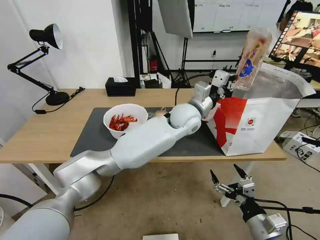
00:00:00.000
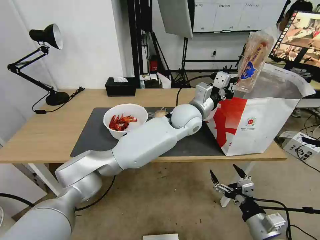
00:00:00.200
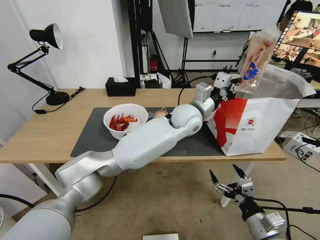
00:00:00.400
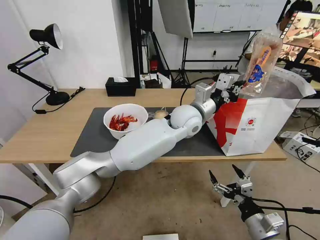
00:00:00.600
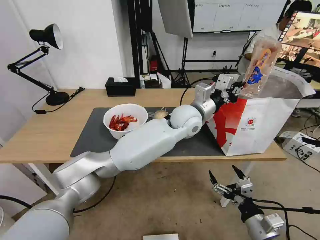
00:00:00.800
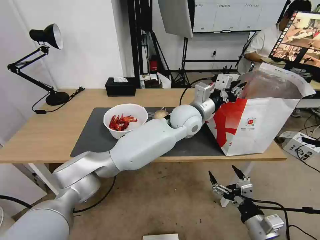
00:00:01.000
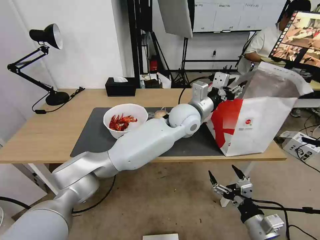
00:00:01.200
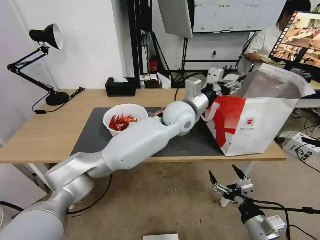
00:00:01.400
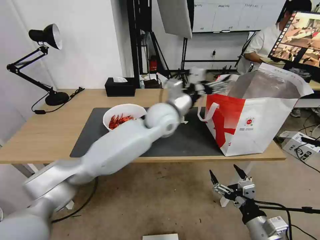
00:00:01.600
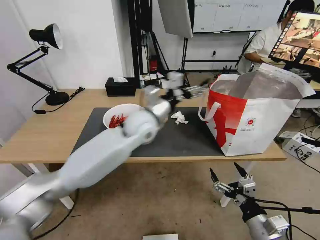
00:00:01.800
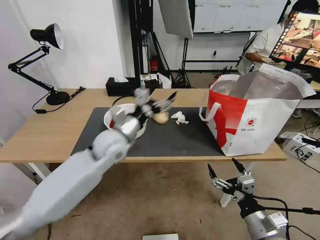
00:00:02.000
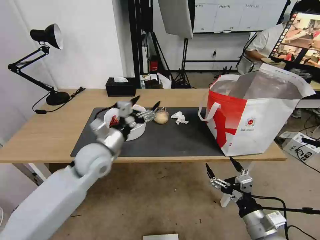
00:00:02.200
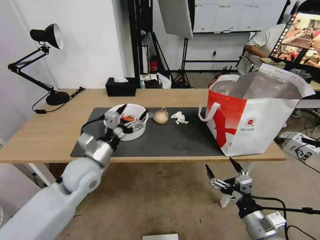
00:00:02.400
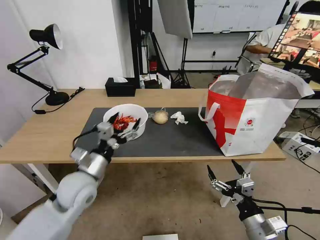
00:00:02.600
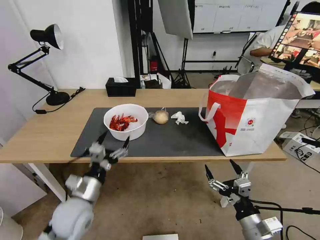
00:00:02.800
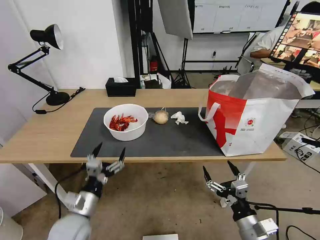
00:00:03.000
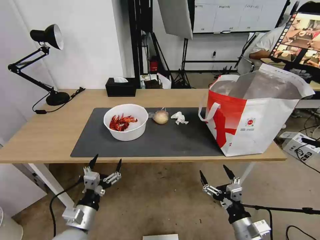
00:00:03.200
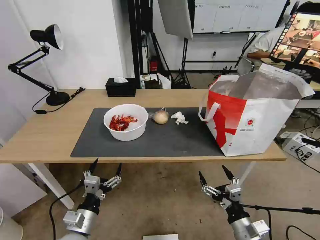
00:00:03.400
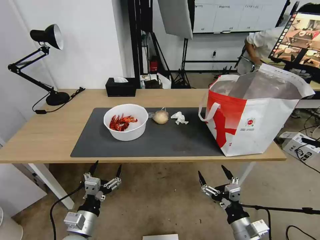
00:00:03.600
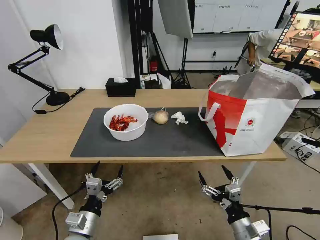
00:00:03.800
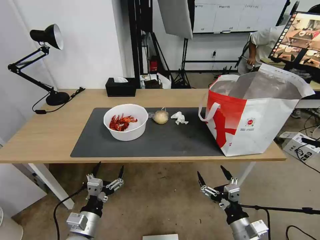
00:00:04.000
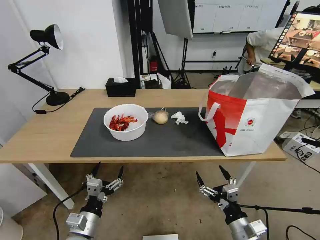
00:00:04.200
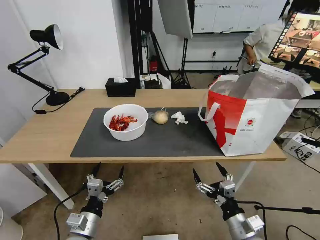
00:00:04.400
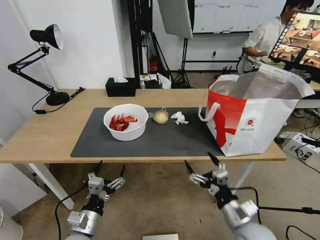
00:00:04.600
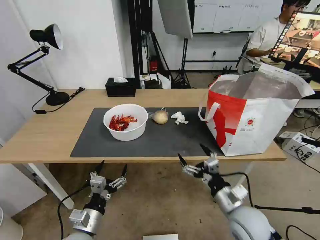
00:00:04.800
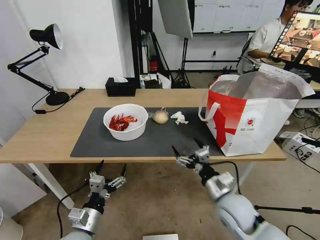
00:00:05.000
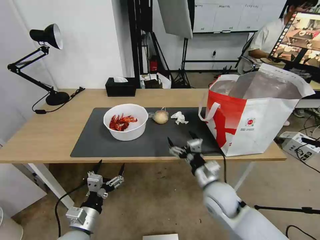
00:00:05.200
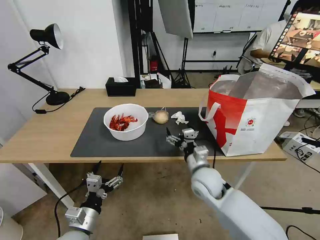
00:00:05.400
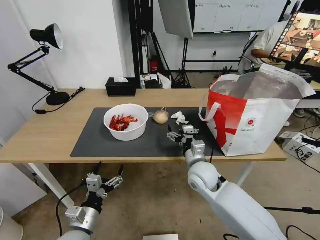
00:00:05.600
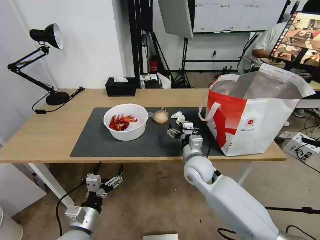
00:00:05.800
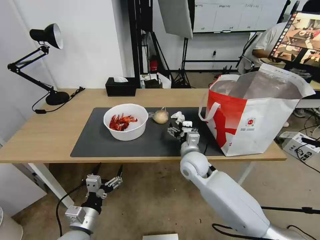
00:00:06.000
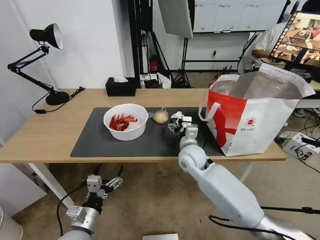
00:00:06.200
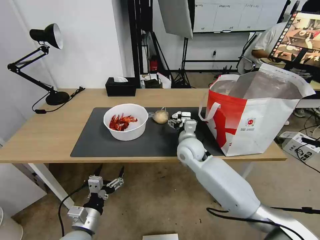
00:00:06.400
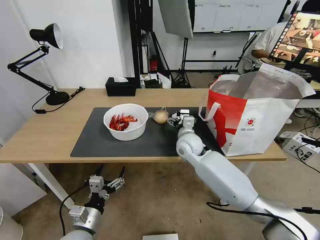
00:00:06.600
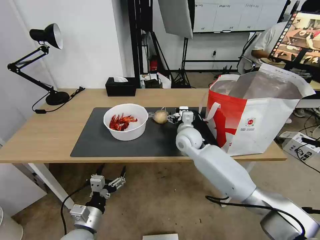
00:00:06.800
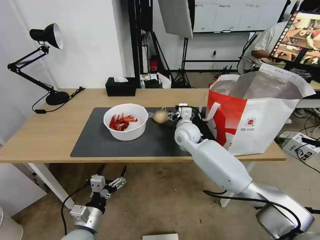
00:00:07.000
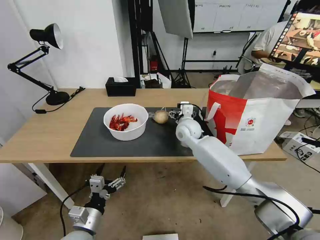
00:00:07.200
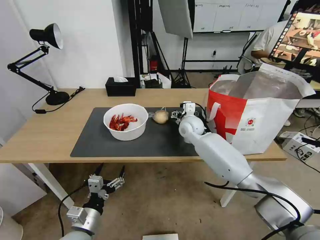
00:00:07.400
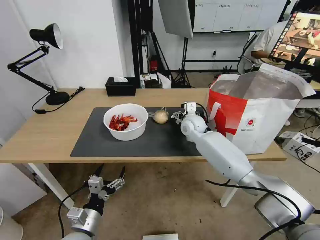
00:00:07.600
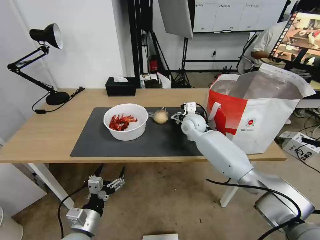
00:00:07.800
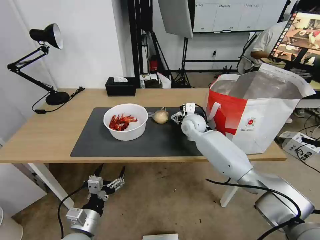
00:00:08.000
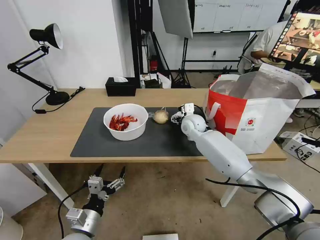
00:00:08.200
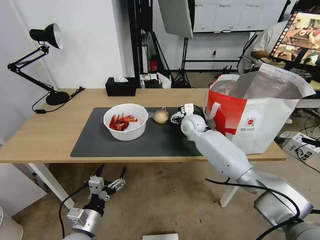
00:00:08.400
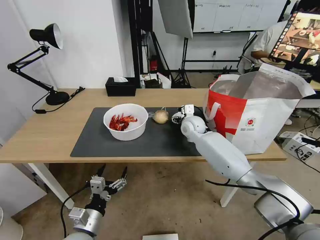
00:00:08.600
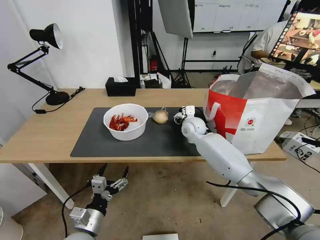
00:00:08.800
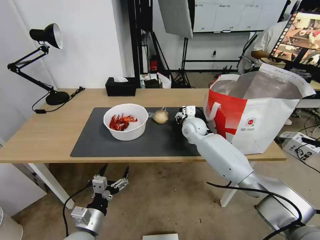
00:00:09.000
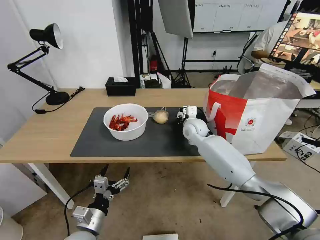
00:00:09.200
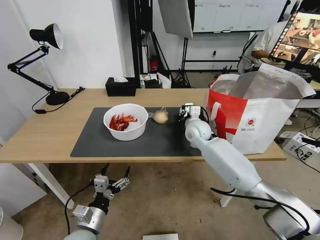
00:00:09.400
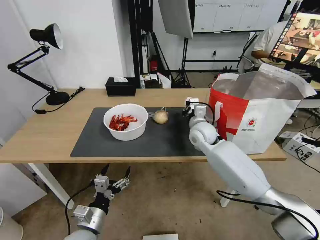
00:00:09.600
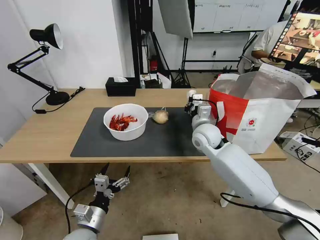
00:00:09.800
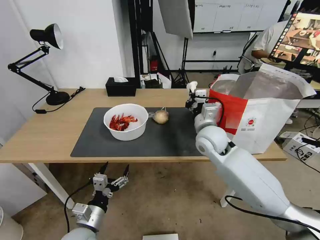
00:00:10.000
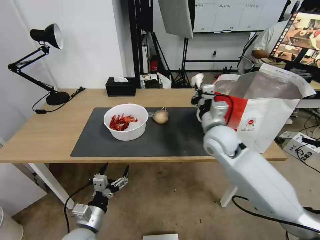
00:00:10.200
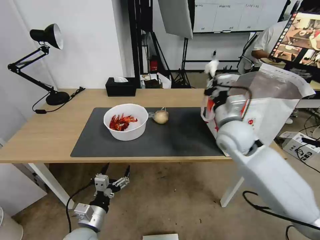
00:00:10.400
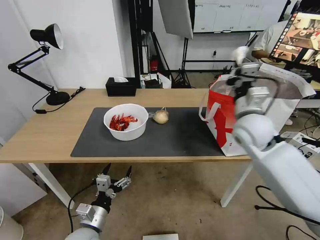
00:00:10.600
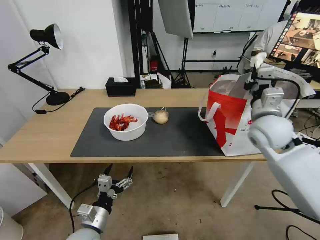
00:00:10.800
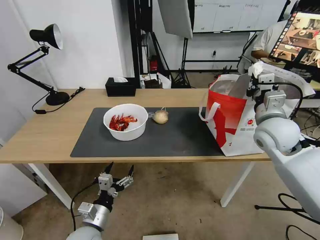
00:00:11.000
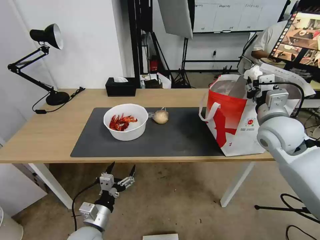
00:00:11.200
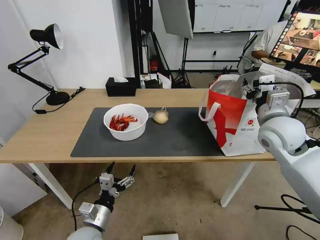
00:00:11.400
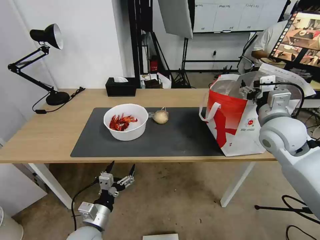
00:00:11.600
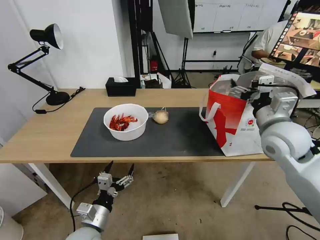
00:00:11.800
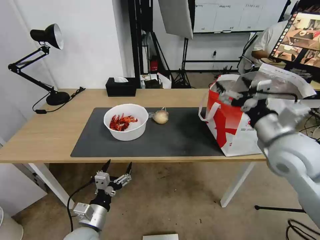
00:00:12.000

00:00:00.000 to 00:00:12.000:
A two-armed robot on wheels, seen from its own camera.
Task of the whole recording: Pick up the trash from the table and place it into the takeout bag.
00:00:00.000 to 00:00:01.600: The left gripper is displaced to the left by some 10 cm, and opens up.
00:00:01.600 to 00:00:03.000: The left gripper travels backward, to the left and downward by approximately 40 cm.
00:00:03.000 to 00:00:04.400: The left gripper ends up some 5 cm from where it was.
00:00:04.400 to 00:00:06.000: The right gripper moves forward and to the left, roughly 30 cm.
00:00:06.000 to 00:00:07.600: The right gripper goes some 15 cm forward.
00:00:07.600 to 00:00:09.000: The right gripper closes its fingers.
00:00:09.000 to 00:00:10.400: The right gripper travels backward, upward and to the right by roughly 20 cm, and closes.
00:00:10.400 to 00:00:12.000: The right gripper is displaced backward and to the right by some 10 cm, and opens its fingers.

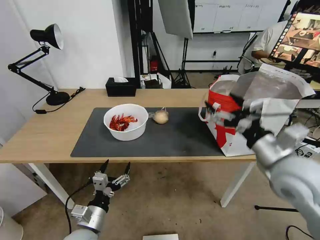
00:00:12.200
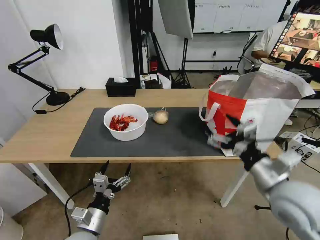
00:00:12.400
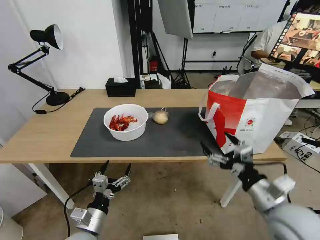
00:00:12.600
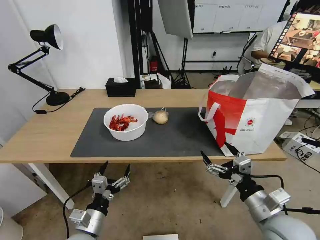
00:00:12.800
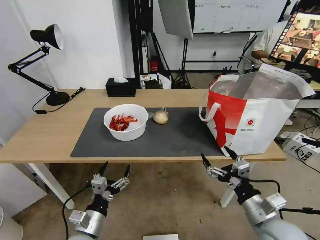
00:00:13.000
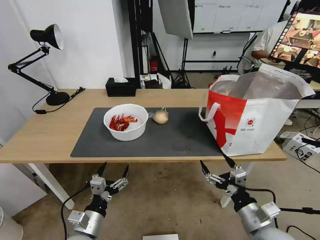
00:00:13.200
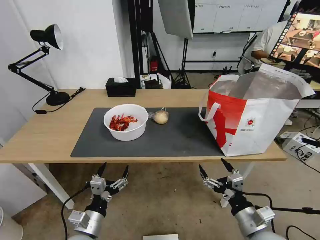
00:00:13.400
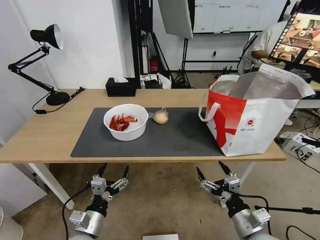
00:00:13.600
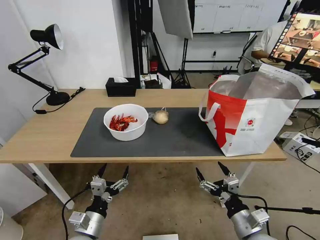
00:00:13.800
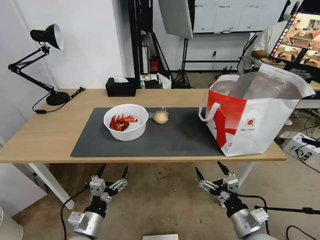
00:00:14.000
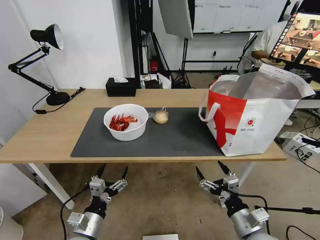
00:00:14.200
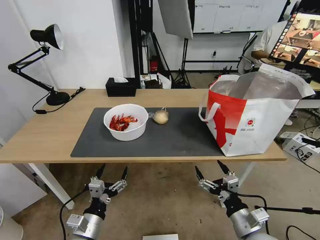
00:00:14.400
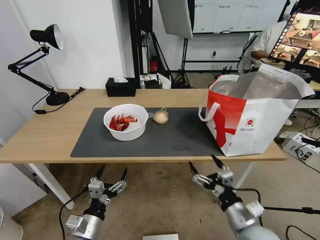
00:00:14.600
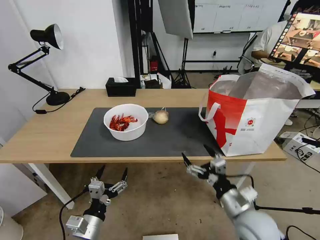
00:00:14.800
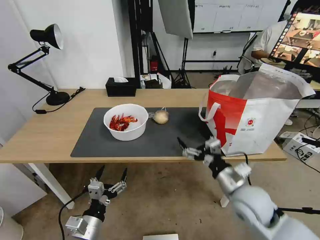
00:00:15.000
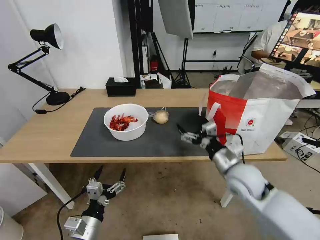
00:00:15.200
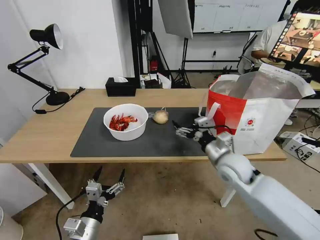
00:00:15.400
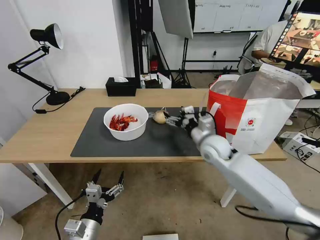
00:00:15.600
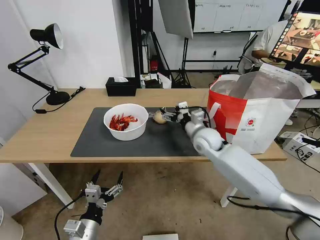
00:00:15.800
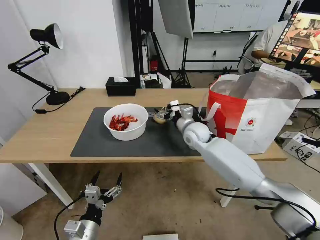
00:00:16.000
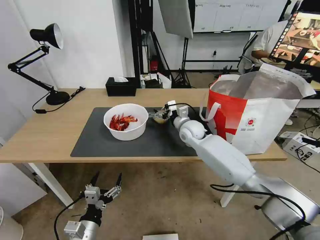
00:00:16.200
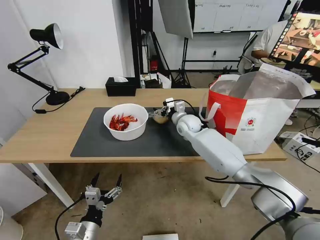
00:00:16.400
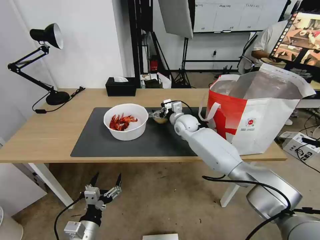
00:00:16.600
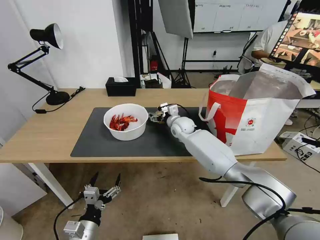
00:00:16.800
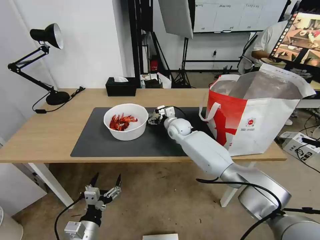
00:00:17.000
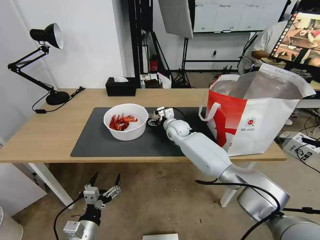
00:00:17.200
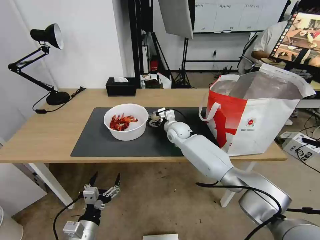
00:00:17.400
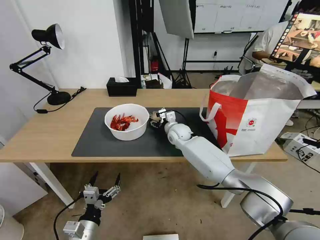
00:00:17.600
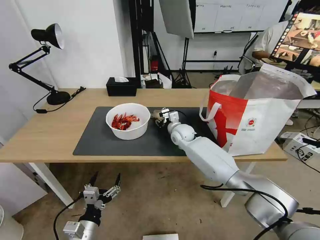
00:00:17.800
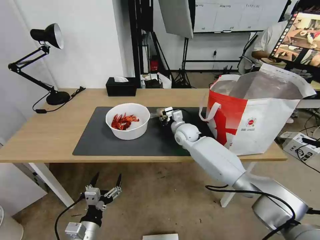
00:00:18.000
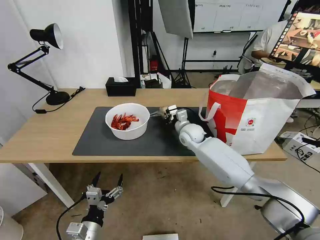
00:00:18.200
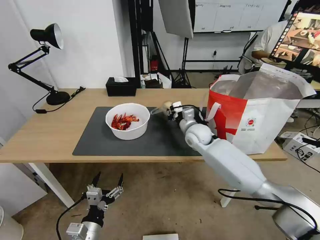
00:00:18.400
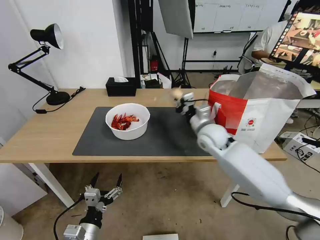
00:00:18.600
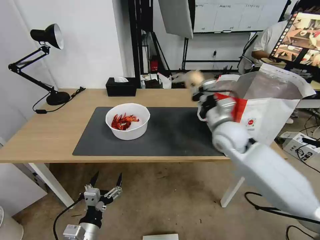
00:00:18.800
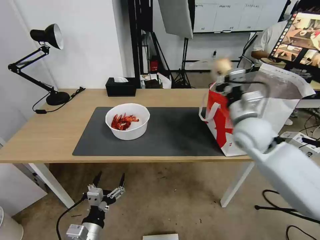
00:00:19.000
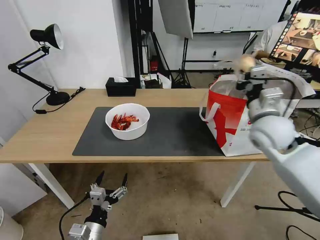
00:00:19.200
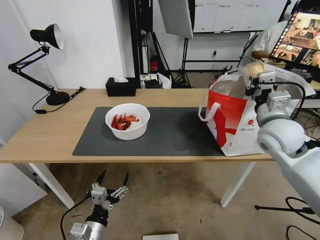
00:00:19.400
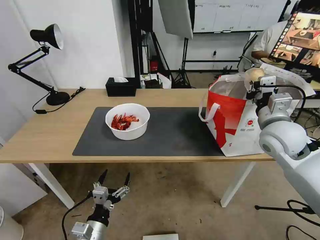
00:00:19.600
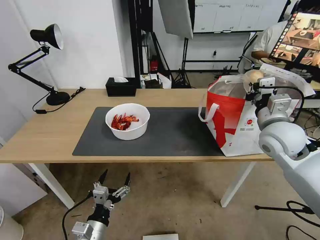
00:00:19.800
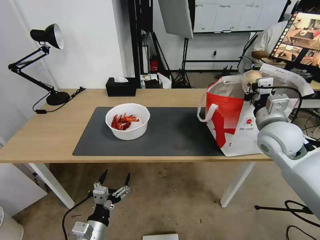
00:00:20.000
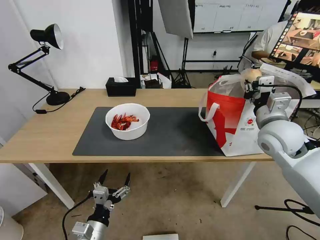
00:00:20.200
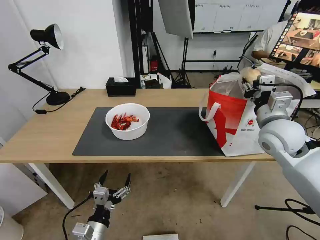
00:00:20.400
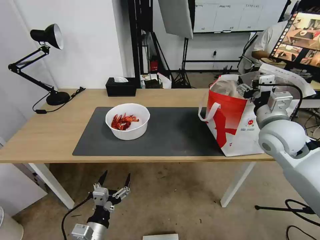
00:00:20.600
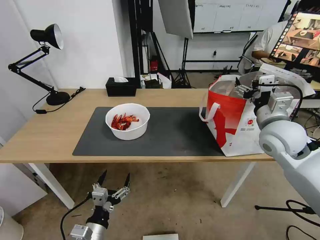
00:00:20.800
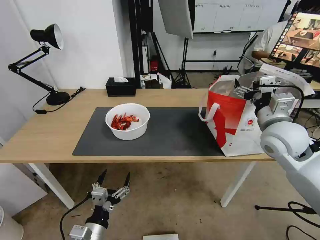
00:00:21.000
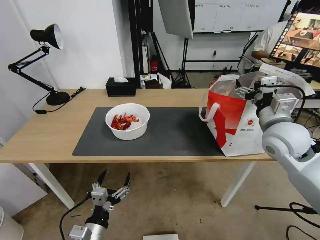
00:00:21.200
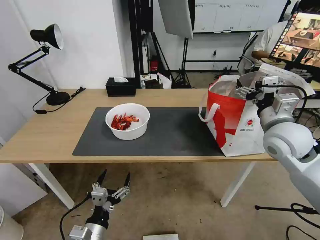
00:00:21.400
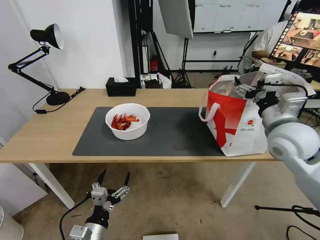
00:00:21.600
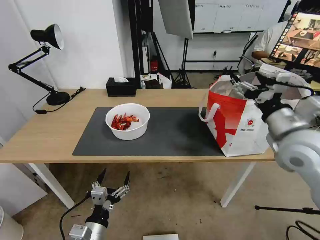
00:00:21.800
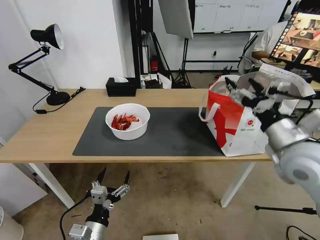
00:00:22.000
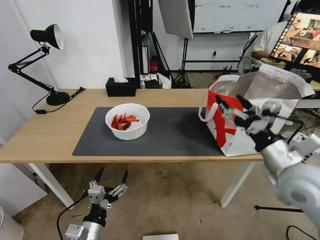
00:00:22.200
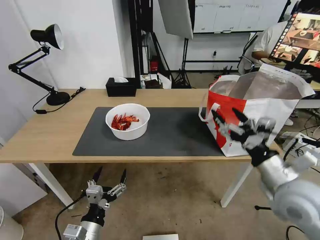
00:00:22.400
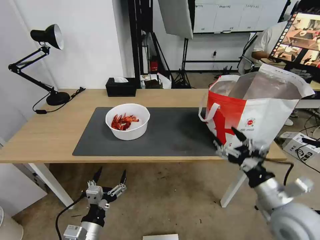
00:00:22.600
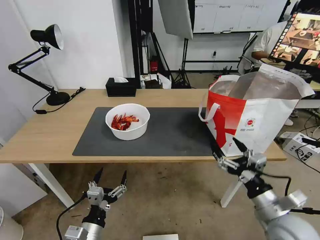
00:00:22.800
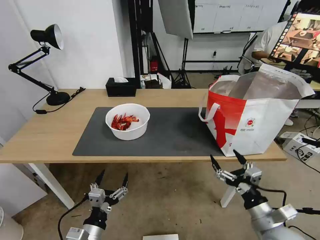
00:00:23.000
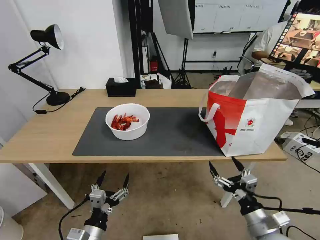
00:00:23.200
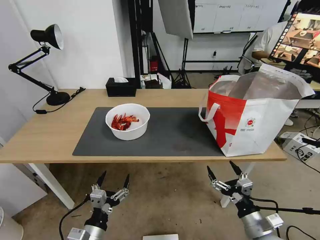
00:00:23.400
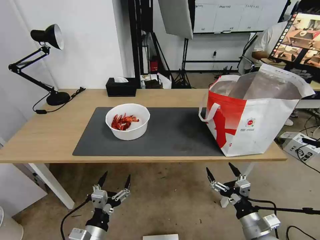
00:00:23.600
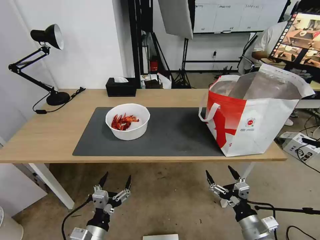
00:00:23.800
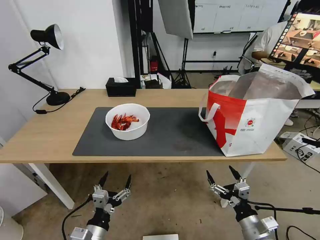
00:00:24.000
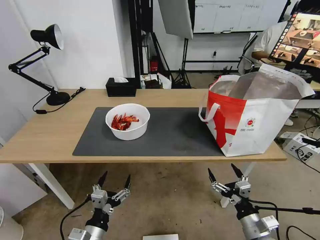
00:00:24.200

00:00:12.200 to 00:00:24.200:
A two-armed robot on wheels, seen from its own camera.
Task of the whole recording: Pick up the trash from the table and place it into the takeout bag.
00:00:12.200 to 00:00:13.800: The right gripper travels downward and backward by some 25 cm.
00:00:13.800 to 00:00:15.200: The right gripper shifts about 20 cm forward and upward.
00:00:15.200 to 00:00:16.600: The right gripper travels forward and to the left by roughly 30 cm.
00:00:16.600 to 00:00:18.200: The right gripper closes up.
00:00:18.200 to 00:00:19.800: The right gripper goes about 30 cm to the right, backward and upward.
00:00:19.800 to 00:00:21.200: The right gripper opens its fingers.
00:00:21.200 to 00:00:22.600: The right gripper heads backward and downward, covering some 20 cm.
00:00:22.600 to 00:00:24.200: The right gripper heads downward, covering roughly 15 cm.
